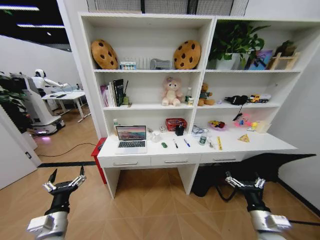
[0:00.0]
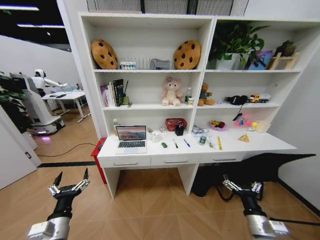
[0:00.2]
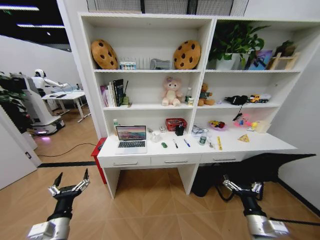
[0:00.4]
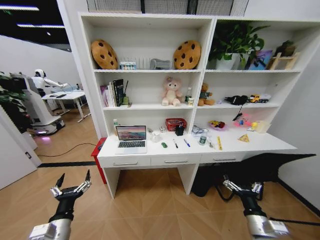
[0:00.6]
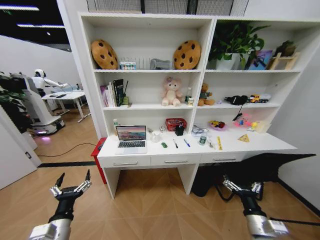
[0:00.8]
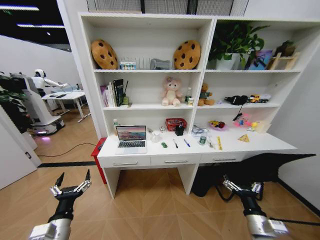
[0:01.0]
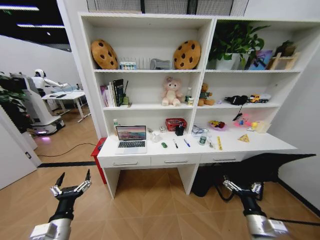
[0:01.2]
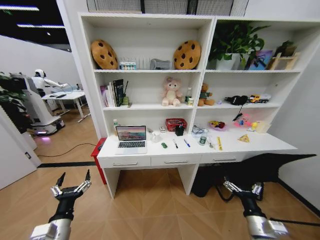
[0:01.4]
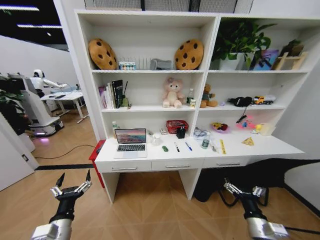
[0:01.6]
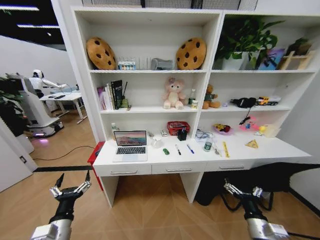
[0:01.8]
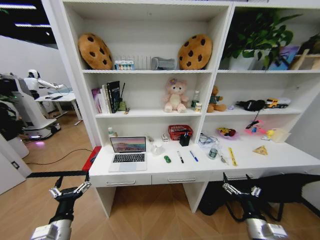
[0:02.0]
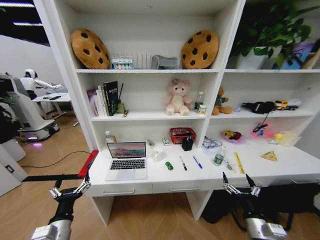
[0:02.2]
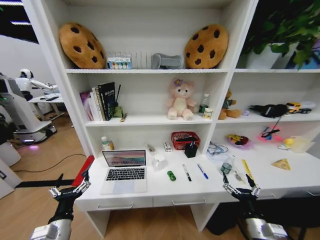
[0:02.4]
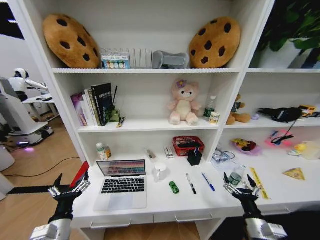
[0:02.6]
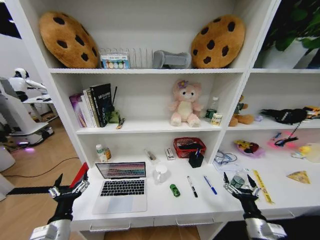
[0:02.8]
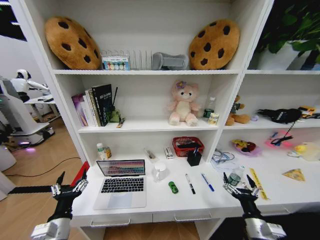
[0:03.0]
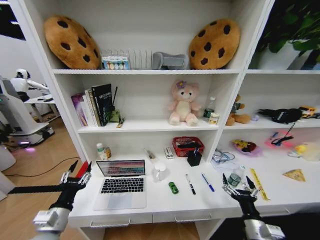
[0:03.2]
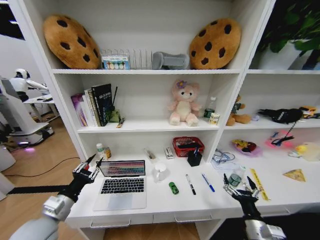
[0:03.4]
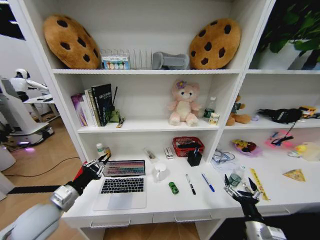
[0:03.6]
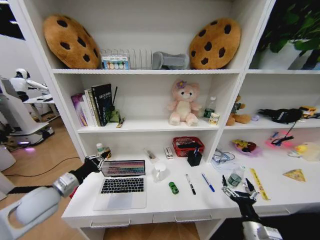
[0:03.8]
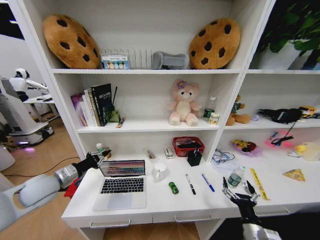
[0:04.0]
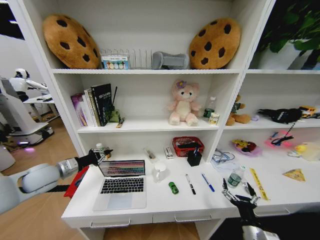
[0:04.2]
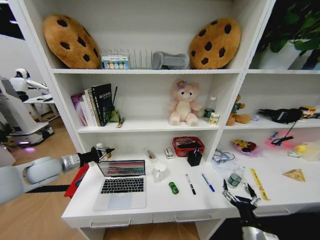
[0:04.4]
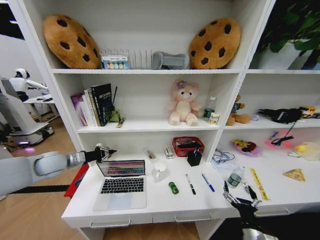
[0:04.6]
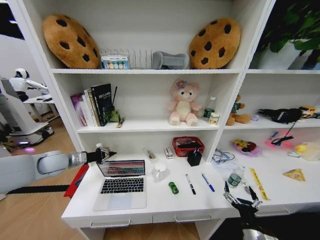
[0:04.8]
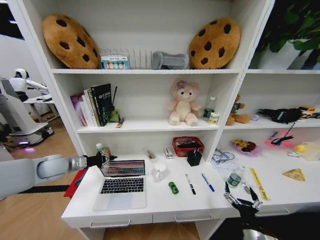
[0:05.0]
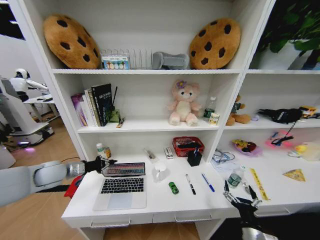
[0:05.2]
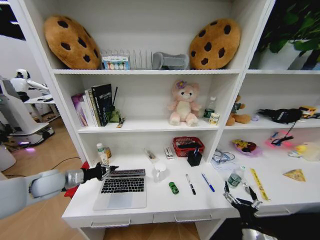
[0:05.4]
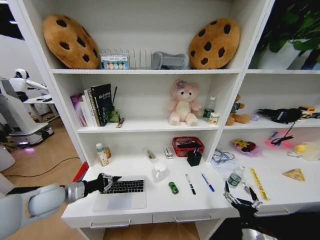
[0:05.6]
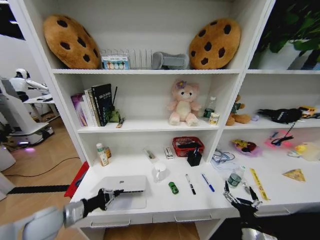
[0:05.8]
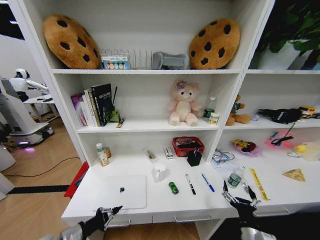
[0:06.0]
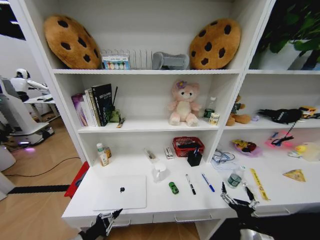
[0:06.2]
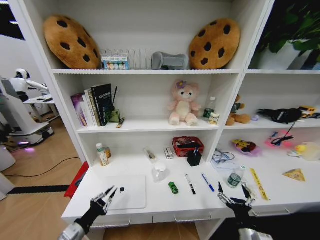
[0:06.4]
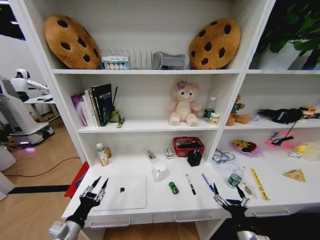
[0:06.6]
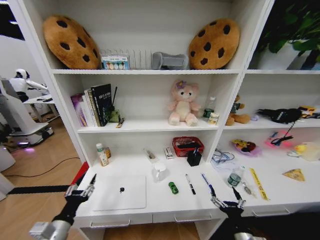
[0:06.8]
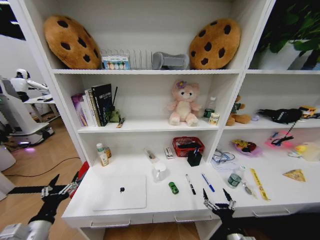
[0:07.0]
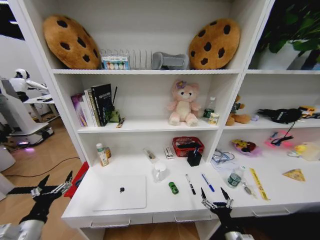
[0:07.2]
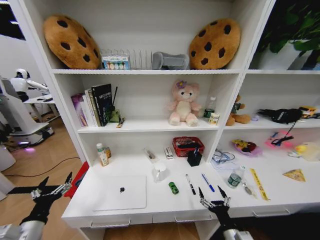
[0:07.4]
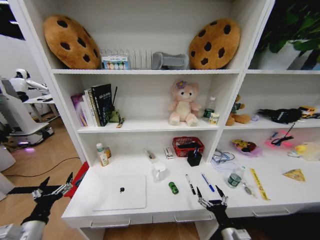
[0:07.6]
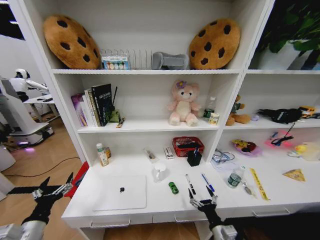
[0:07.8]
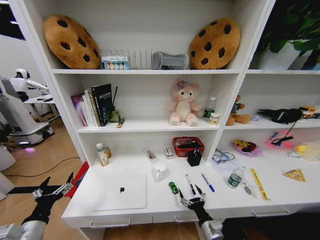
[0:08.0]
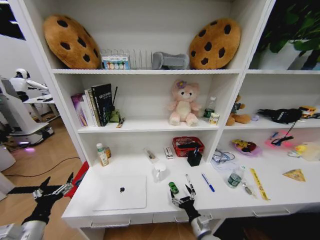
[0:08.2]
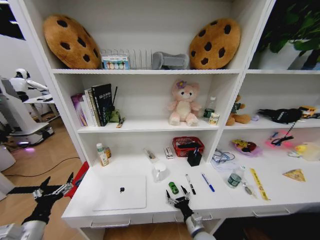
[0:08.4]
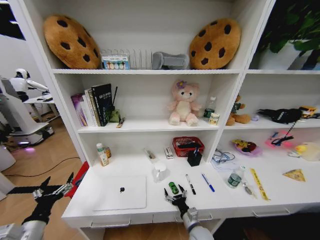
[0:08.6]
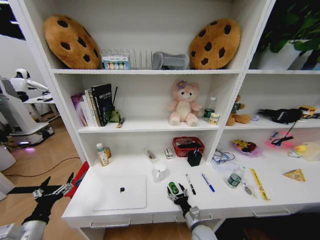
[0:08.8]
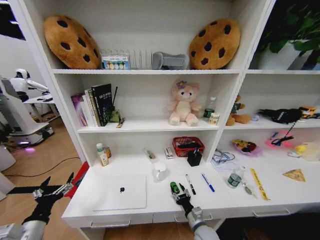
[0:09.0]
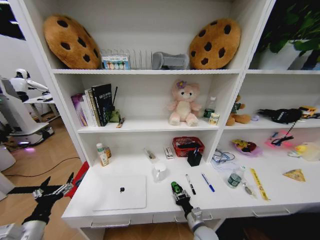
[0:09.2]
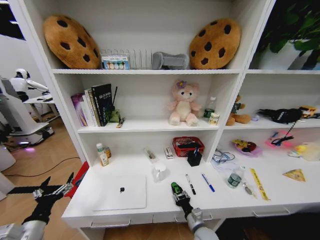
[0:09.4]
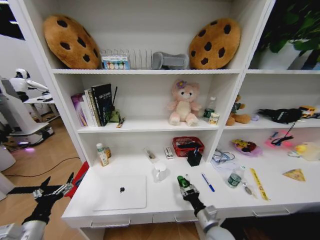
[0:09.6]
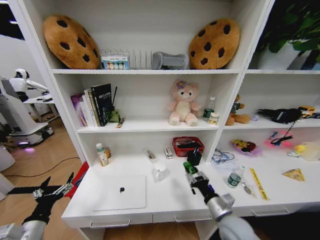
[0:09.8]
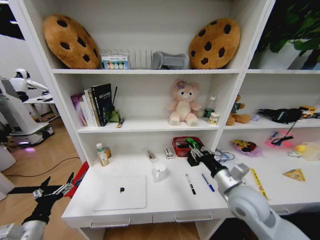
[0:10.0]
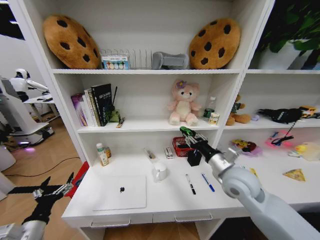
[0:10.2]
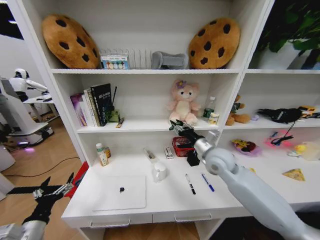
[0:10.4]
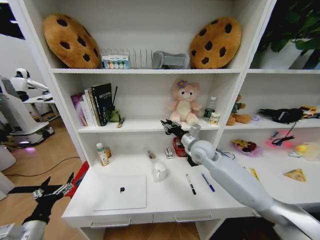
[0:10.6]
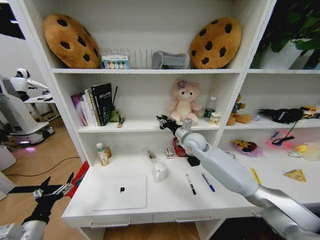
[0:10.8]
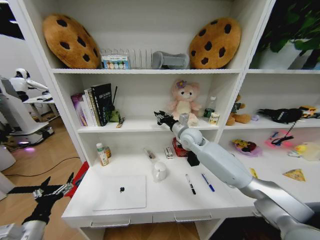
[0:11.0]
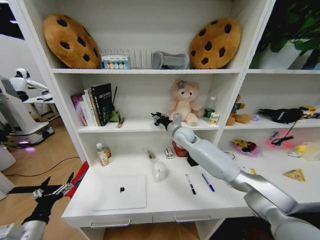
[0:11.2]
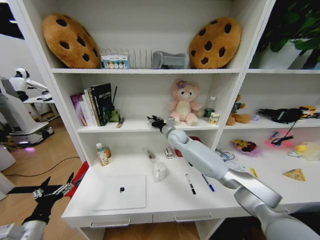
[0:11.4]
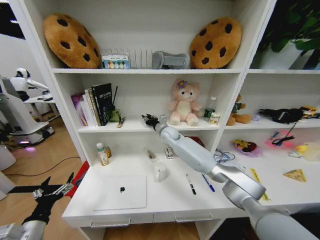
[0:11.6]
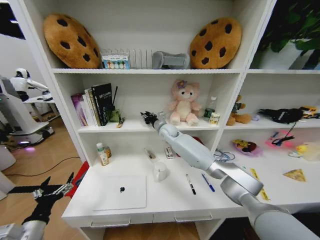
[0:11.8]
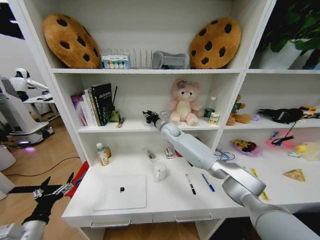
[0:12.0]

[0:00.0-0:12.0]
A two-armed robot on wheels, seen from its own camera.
Task of the whole recording: Organize the objects on the table.
0:03.0 to 0:04.4: The left gripper goes approximately 30 cm forward, upward and to the left, and closes up.
0:04.4 to 0:06.0: The left gripper heads backward and downward, covering about 25 cm.
0:06.0 to 0:07.6: The left gripper ends up about 5 cm from where it was, and opens its fingers.
0:07.6 to 0:09.0: The right gripper heads forward, to the left and downward, covering roughly 15 cm, and closes its fingers.
0:09.0 to 0:10.4: The right gripper heads upward, covering roughly 30 cm.
0:10.4 to 0:12.0: The right gripper is displaced forward and to the left by about 35 cm.

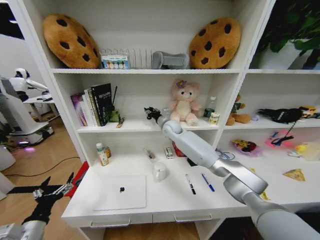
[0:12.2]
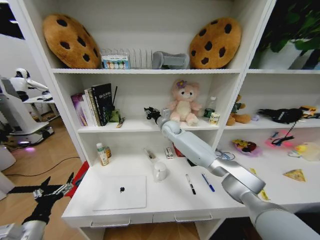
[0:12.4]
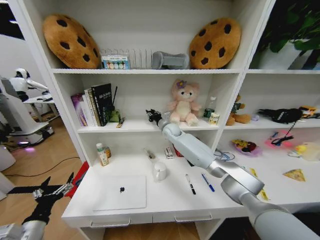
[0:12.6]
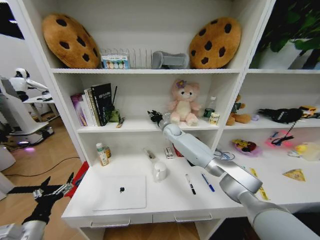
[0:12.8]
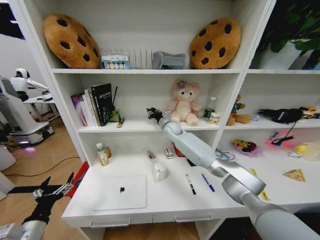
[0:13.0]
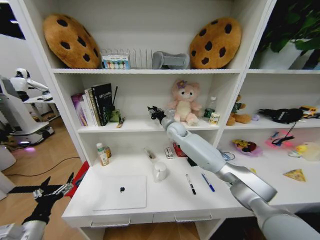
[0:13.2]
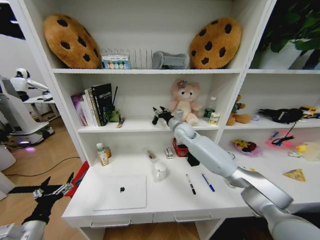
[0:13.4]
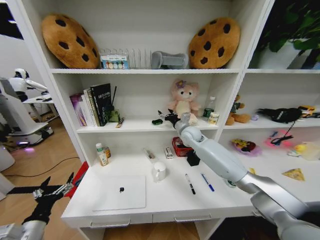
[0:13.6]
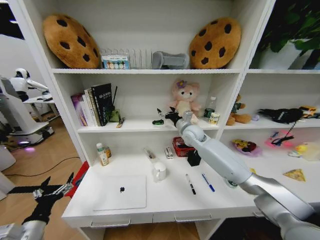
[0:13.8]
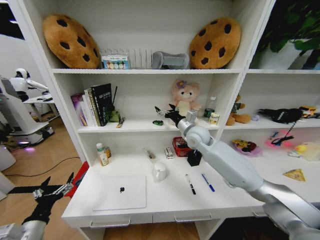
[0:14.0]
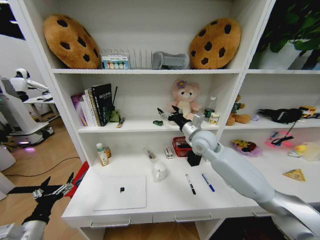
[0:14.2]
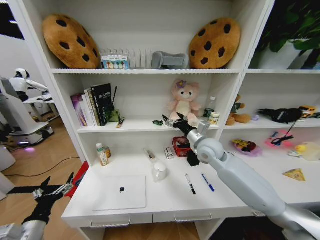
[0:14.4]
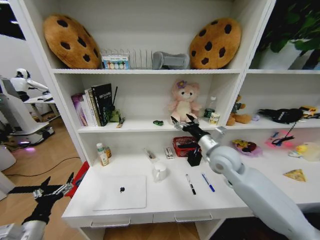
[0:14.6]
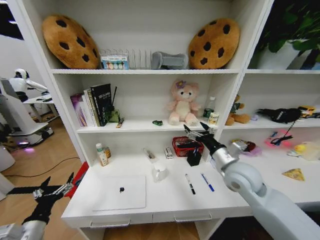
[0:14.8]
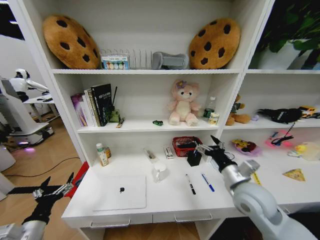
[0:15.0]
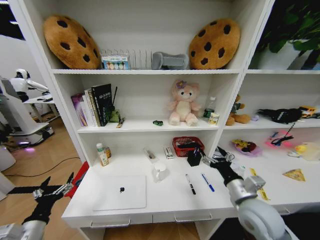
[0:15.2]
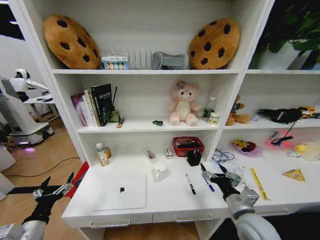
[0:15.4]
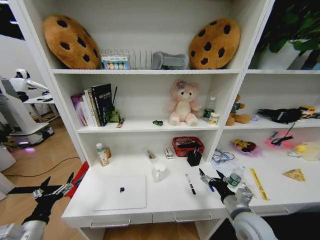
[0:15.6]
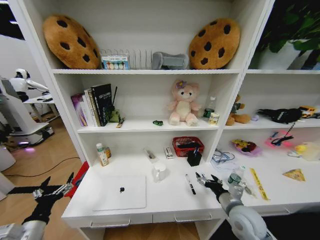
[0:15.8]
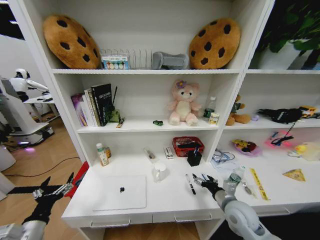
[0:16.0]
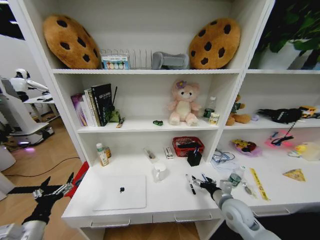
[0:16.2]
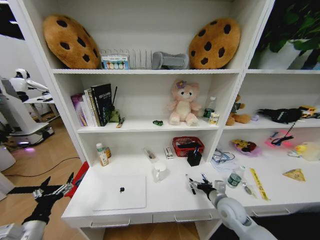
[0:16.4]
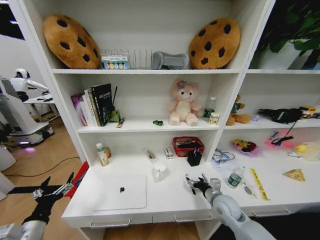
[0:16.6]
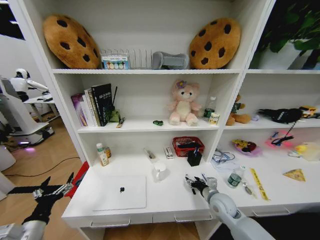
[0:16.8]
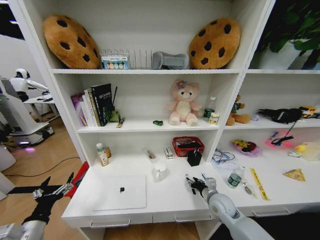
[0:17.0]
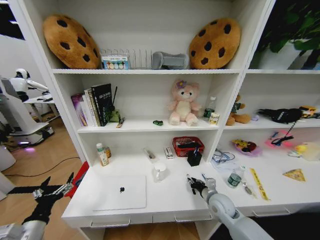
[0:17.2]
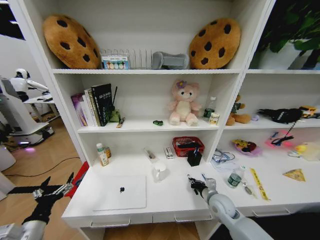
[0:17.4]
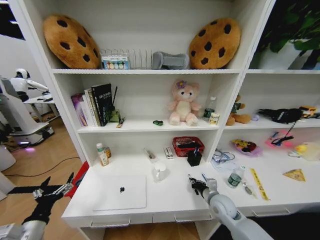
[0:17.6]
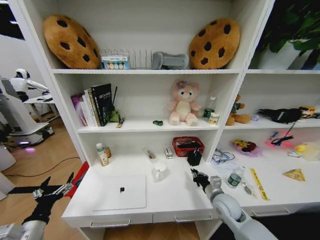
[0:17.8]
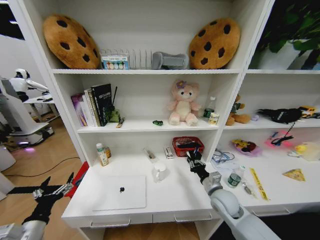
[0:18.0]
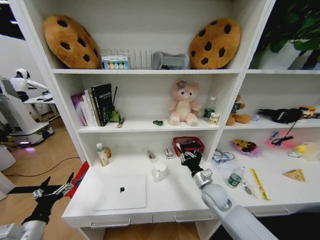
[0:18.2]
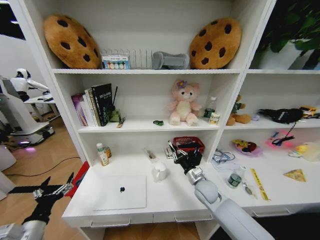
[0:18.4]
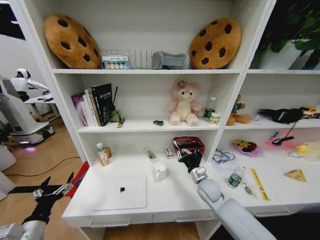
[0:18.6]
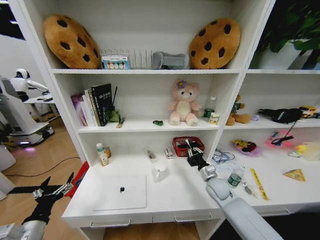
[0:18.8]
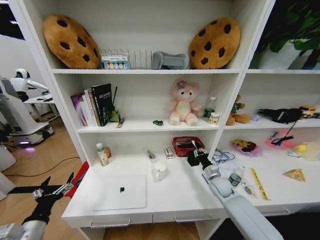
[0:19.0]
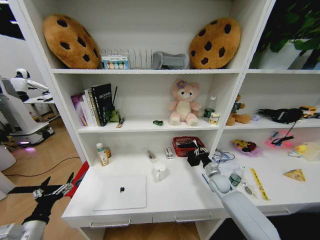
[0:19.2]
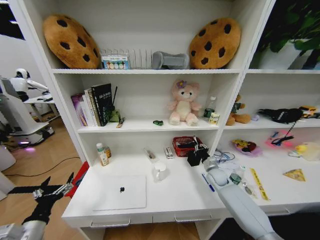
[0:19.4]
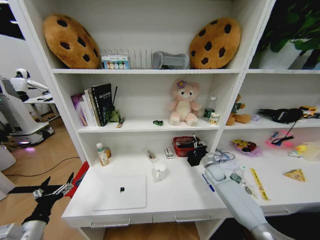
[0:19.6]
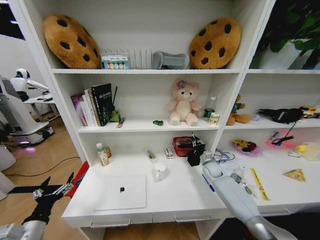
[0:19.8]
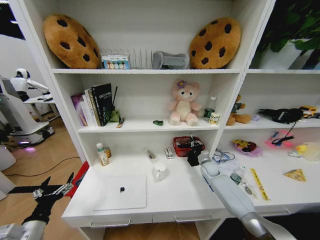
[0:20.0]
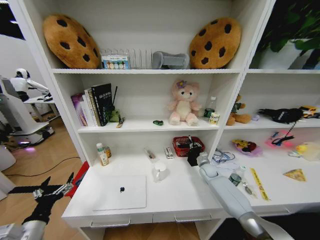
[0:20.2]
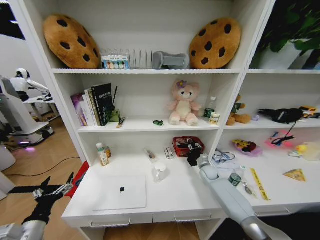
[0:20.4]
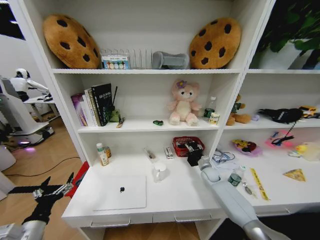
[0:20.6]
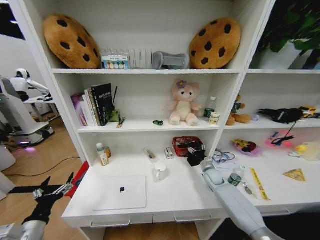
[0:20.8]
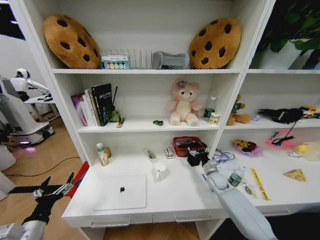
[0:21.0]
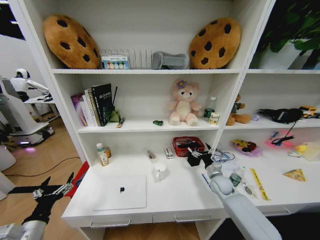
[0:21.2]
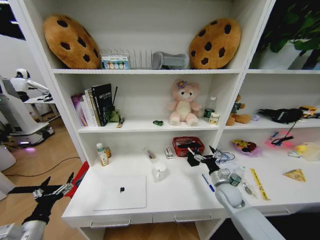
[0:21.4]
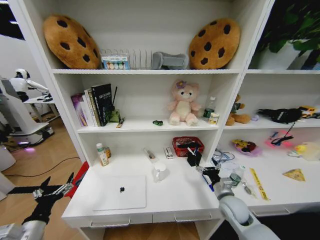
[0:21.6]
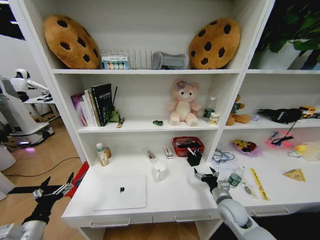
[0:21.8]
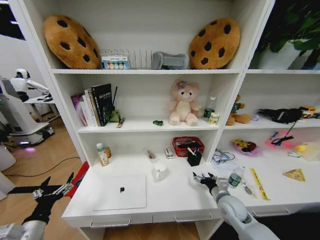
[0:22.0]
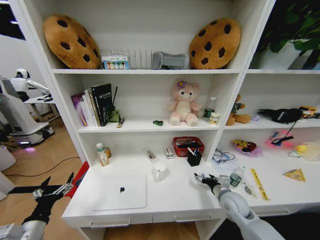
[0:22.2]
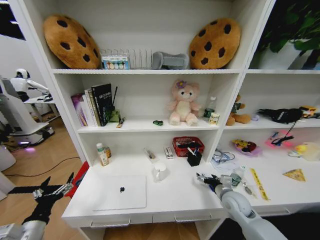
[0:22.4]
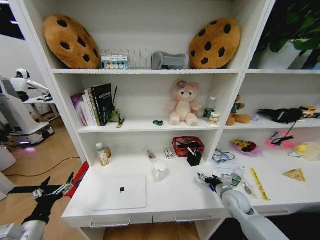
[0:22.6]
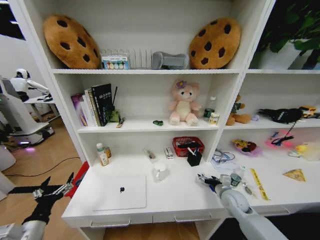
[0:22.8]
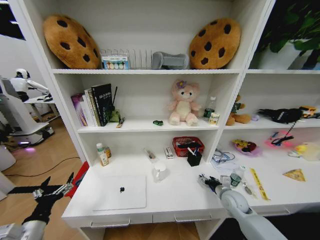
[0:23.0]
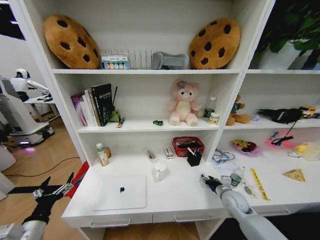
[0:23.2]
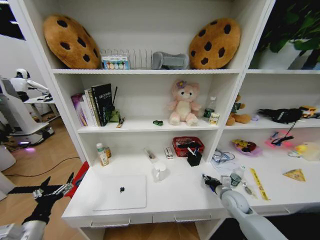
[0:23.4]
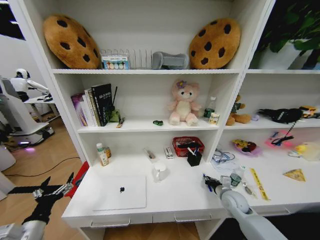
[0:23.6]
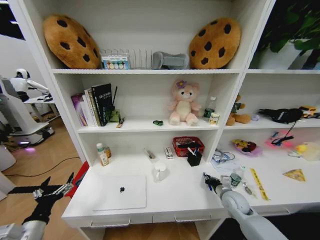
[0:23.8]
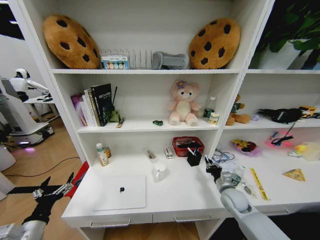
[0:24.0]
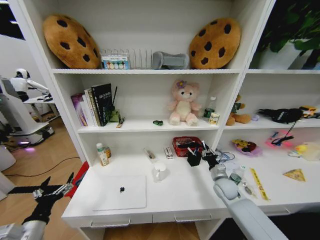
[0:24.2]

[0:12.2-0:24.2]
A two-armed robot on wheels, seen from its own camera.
Task of the whole recording: Organize the objects on the table.
0:12.2 to 0:13.8: The right gripper travels to the right and backward by about 10 cm, and opens up.
0:13.8 to 0:15.2: The right gripper heads backward, covering approximately 30 cm.
0:15.2 to 0:16.6: The right gripper moves downward and forward, roughly 15 cm.
0:16.6 to 0:18.2: The right gripper is displaced to the left by about 5 cm, and closes.
0:18.2 to 0:19.8: The right gripper heads forward and to the right, covering roughly 20 cm.
0:19.8 to 0:21.2: The right gripper goes some 10 cm backward, and opens.
0:21.2 to 0:22.6: The right gripper goes some 10 cm backward.
0:22.6 to 0:24.2: The right gripper shifts approximately 5 cm forward, and closes up.
